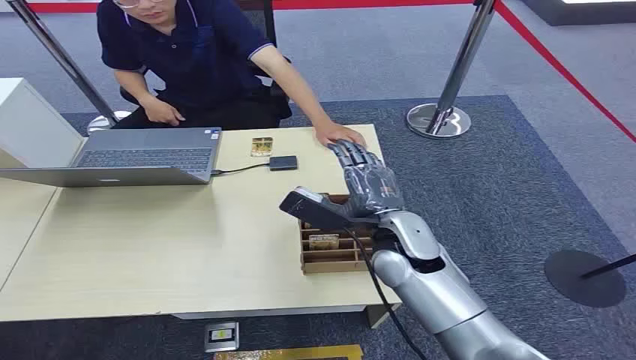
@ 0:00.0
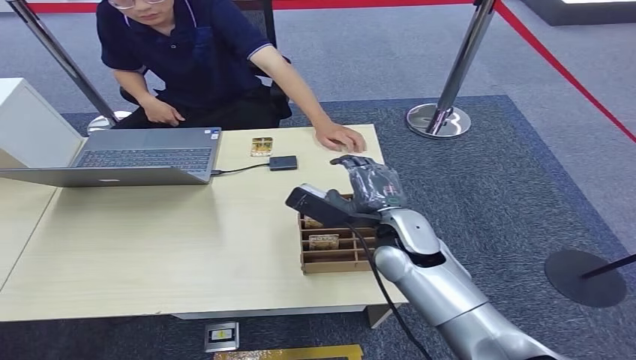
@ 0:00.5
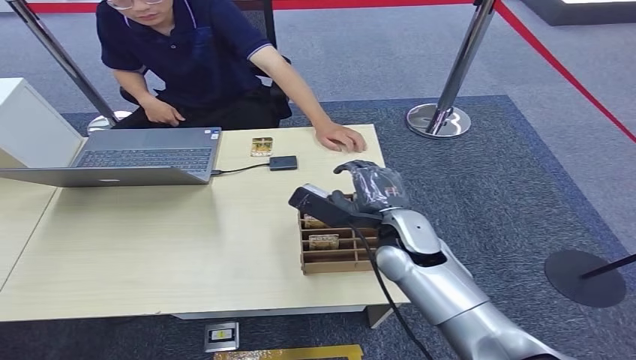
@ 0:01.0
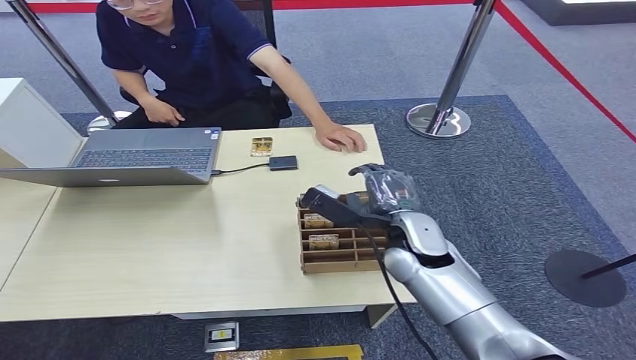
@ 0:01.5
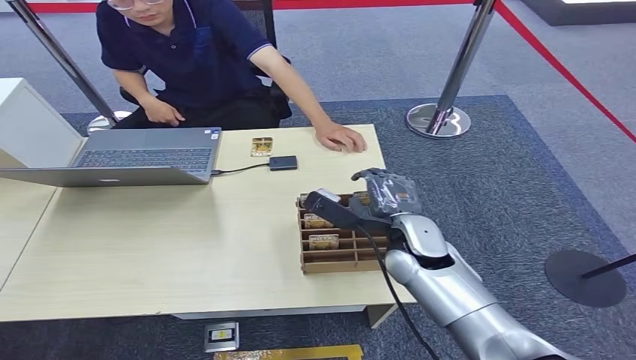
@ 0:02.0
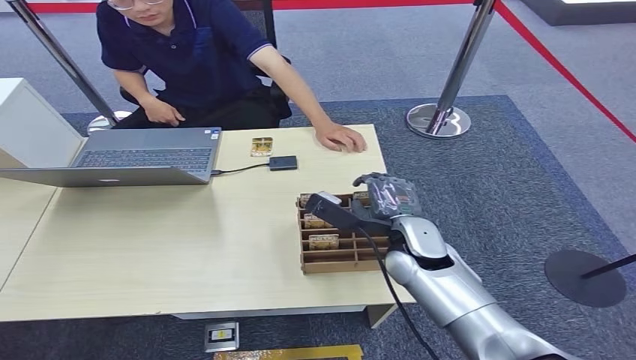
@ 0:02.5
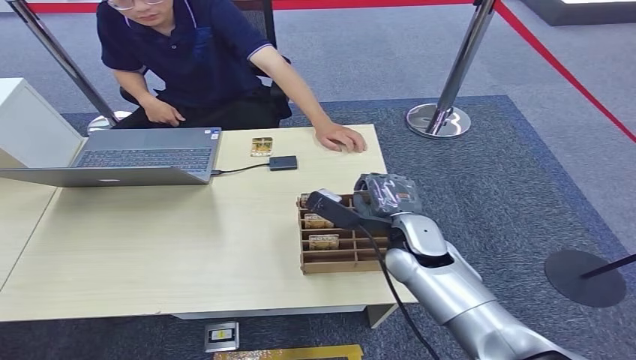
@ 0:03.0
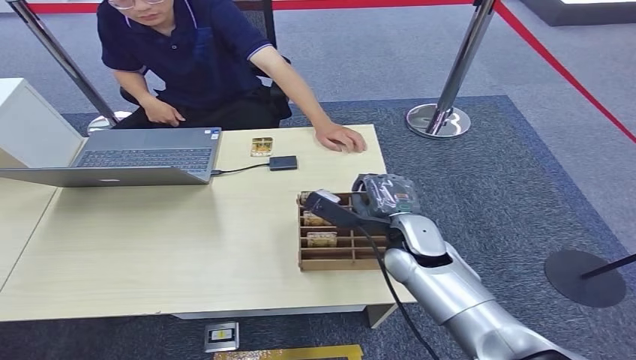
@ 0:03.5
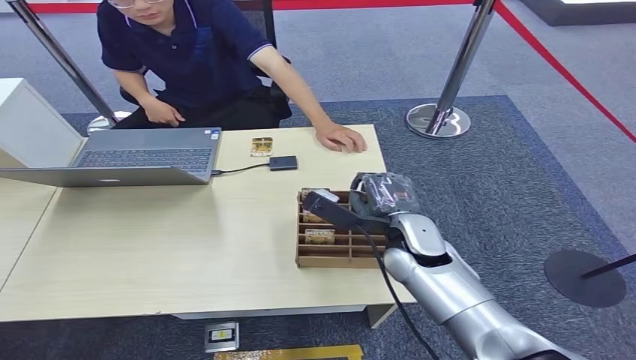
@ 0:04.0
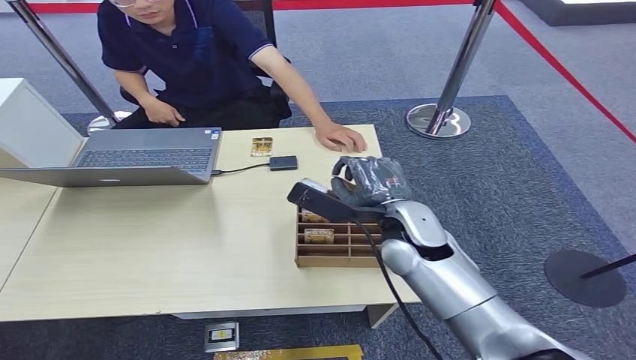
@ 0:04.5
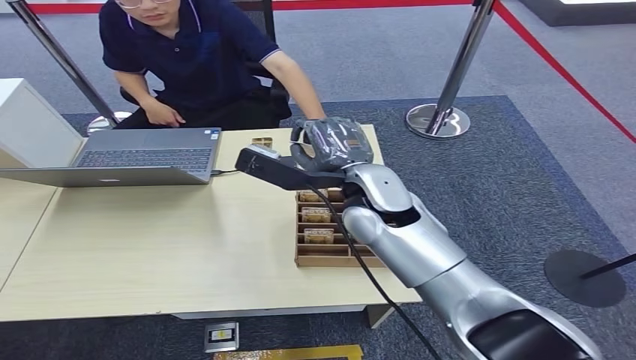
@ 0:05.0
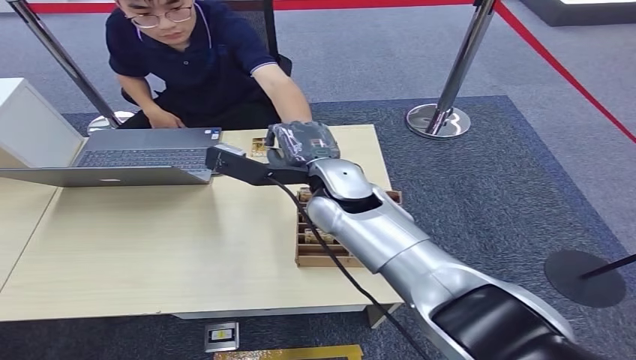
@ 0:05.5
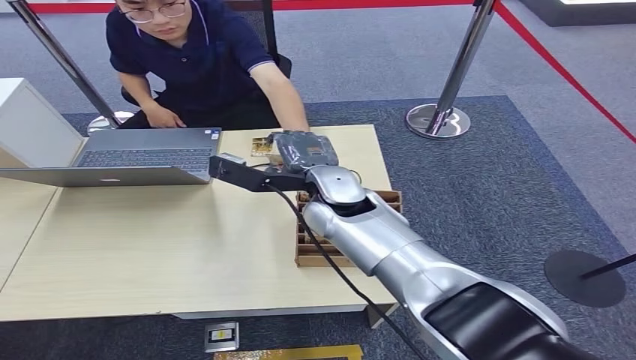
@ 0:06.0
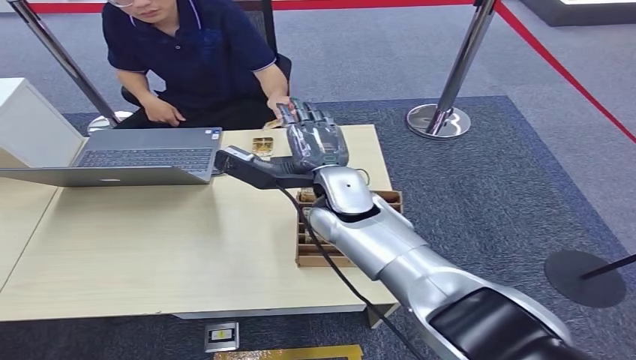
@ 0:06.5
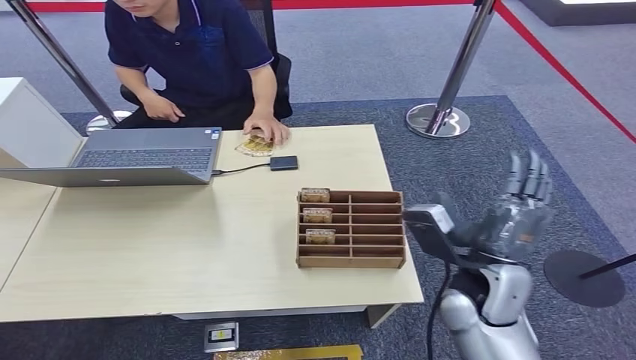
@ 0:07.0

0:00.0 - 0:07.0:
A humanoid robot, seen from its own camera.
Step, 0:00.0 - 0:04.5: Pick up the room card from the card holder.
Step, 0:05.0 - 0:07.0: Hand the room card to the target.
0:02.0 - 0:03.5: The two hands keep their place.
0:03.5 - 0:05.0: The right hand shifts roughly 15 cm upward and to the left.
0:05.0 - 0:07.0: The right hand goes roughly 20 cm backward, to the right and downward.
